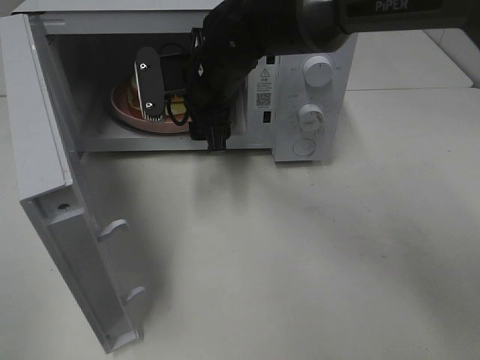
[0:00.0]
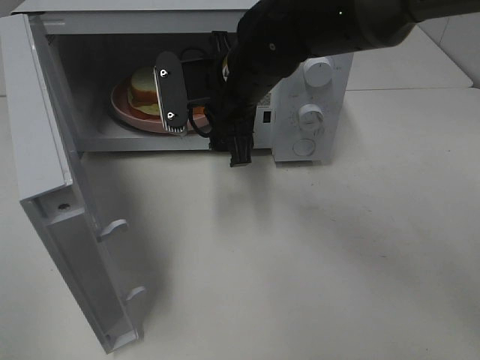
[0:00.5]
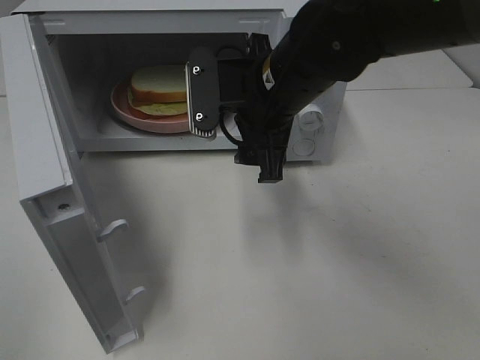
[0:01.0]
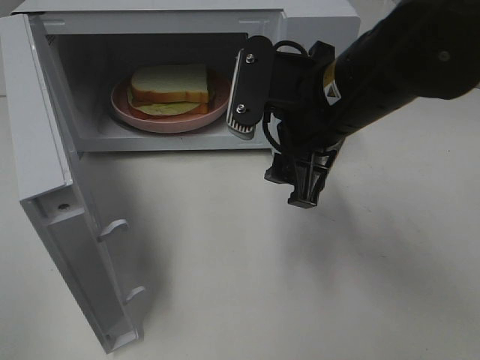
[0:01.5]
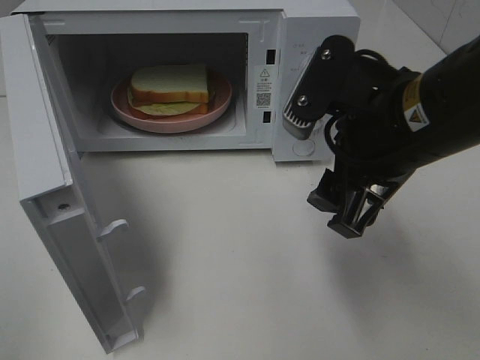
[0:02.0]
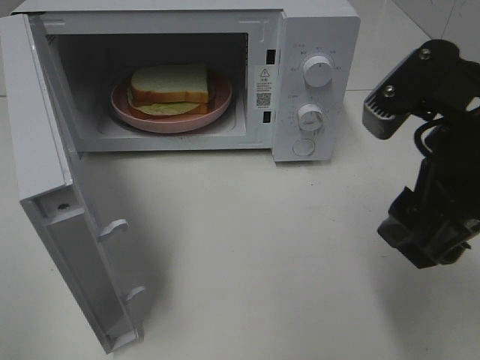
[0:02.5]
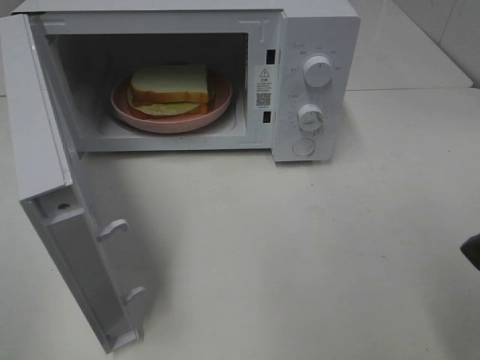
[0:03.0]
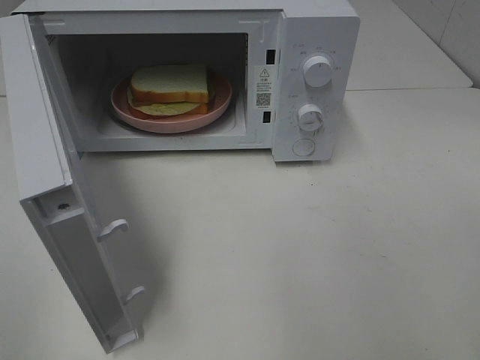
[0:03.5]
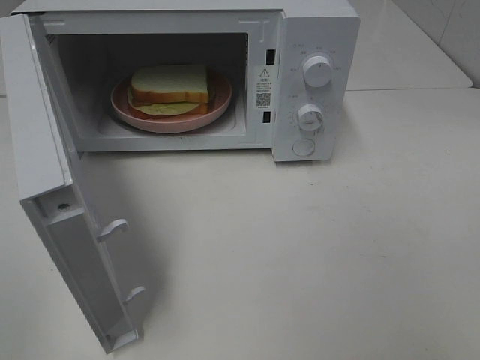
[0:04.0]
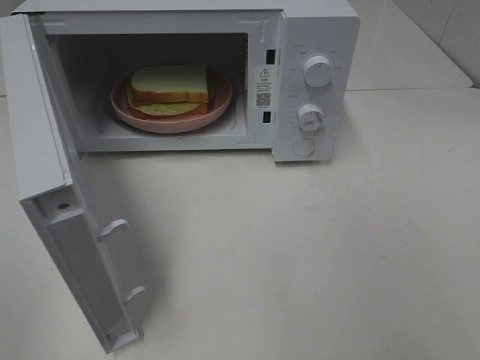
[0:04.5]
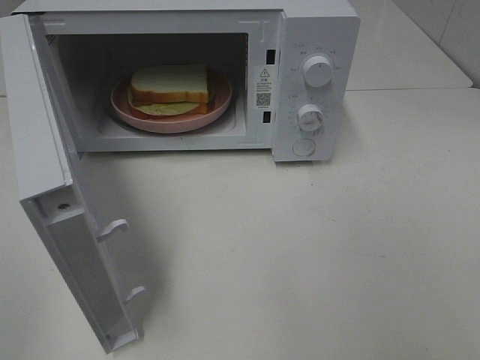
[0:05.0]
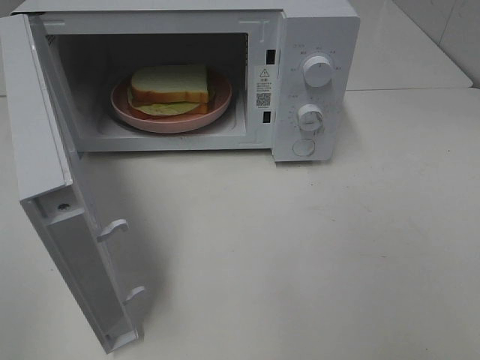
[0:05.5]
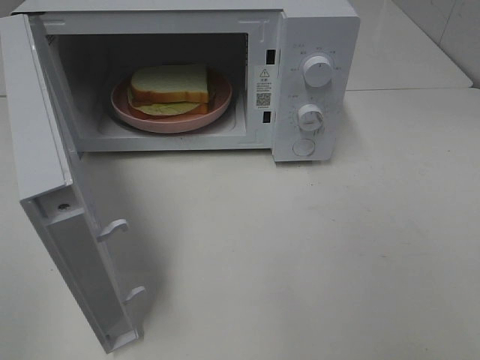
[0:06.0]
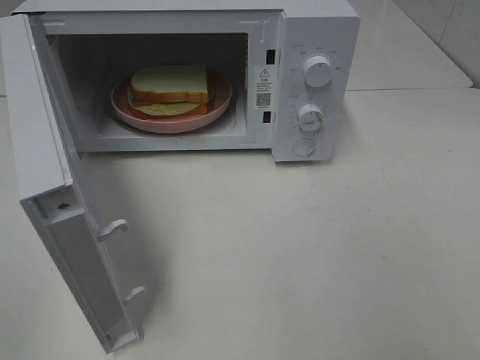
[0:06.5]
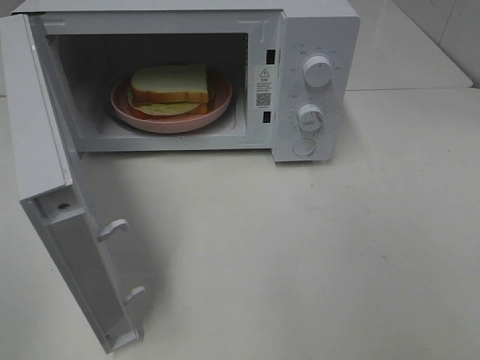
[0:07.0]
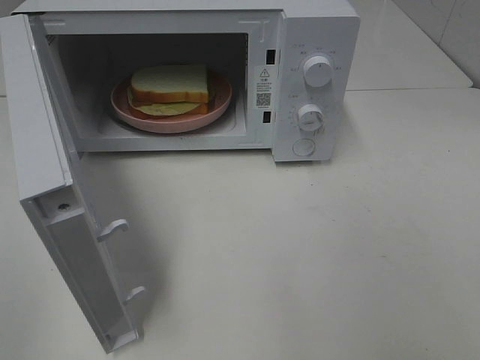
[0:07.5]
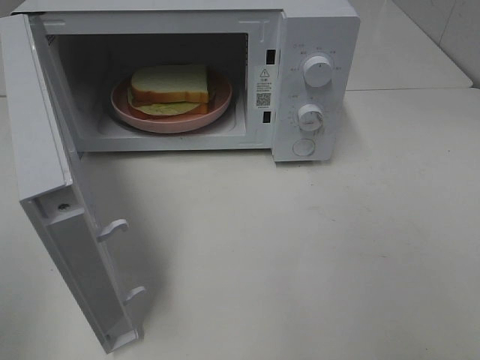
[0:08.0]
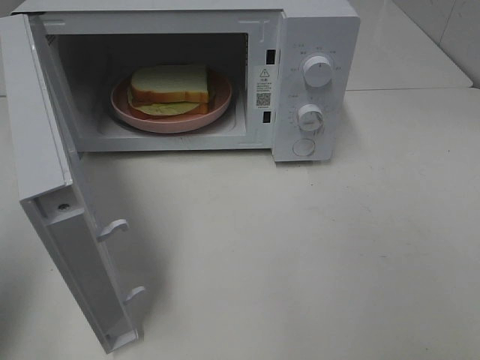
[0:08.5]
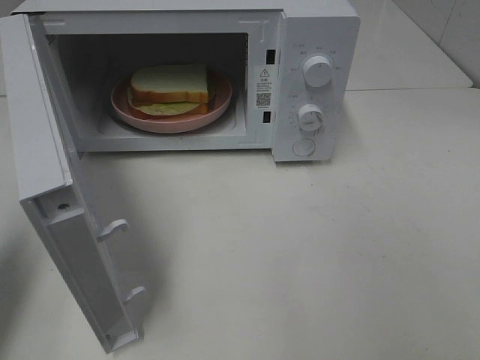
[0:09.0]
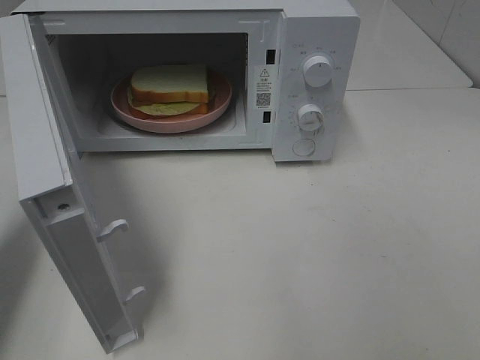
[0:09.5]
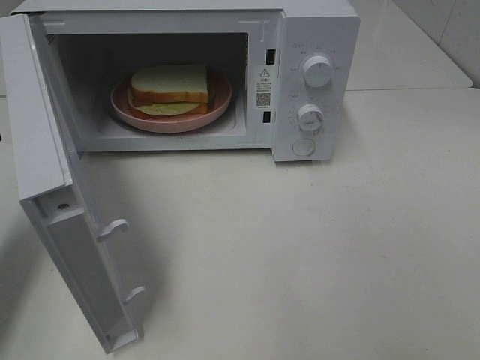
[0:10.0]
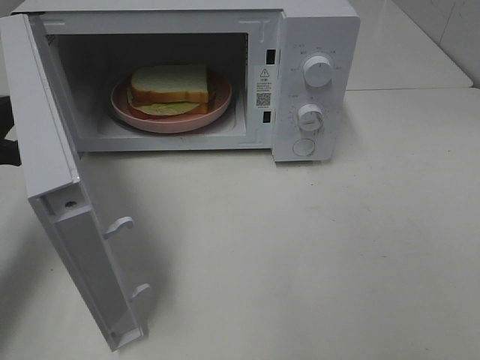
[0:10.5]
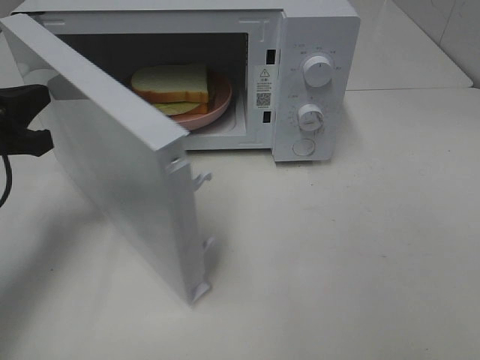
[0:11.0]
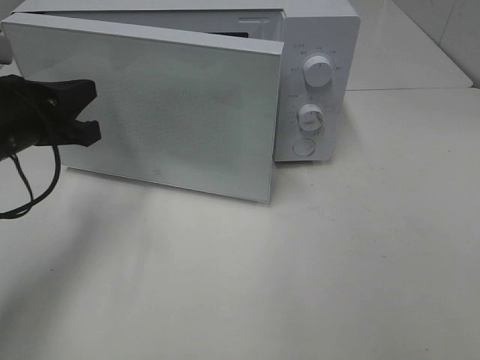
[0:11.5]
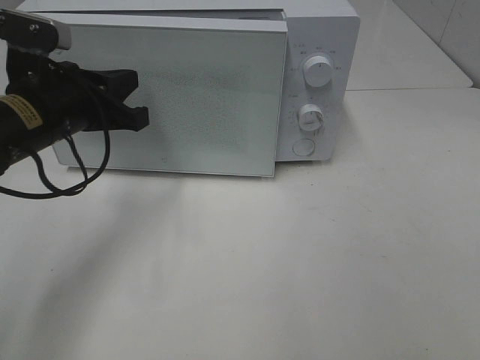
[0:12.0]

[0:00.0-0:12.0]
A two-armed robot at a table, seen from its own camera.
Task of the whole recording: Heat Sandwich.
0:00.0 to 0:02.0: The right gripper travels backward and to the right by roughly 25 cm.
0:02.0 to 0:04.0: The right gripper is displaced backward and to the right by some 20 cm.
0:08.0 to 0:10.0: The left gripper travels forward and downward by approximately 20 cm, and closes up.
0:10.0 to 0:12.0: The left gripper goes some 15 cm to the right and forward.

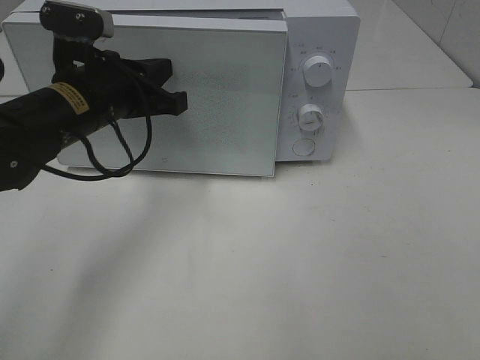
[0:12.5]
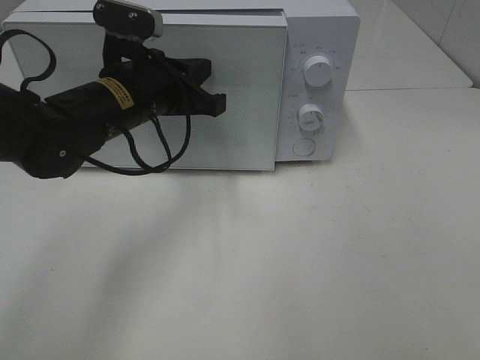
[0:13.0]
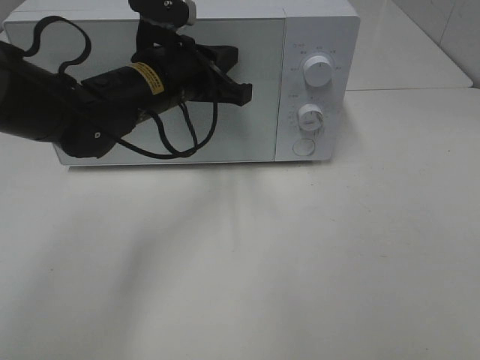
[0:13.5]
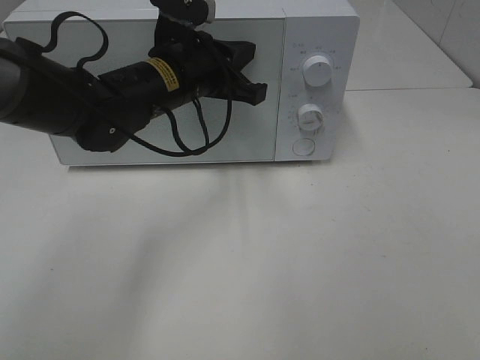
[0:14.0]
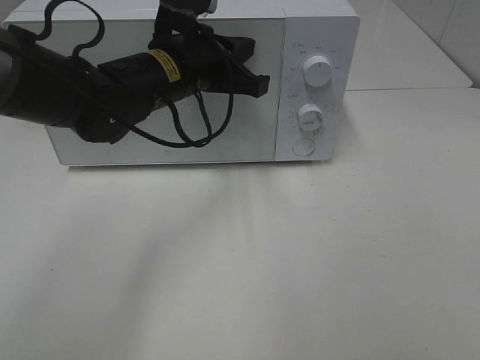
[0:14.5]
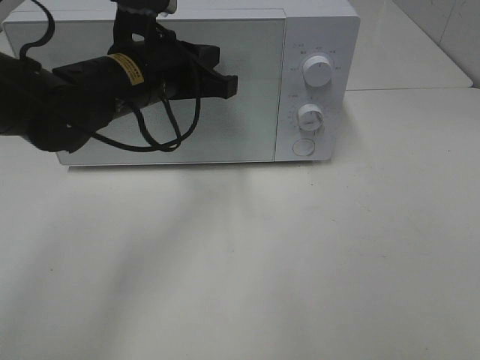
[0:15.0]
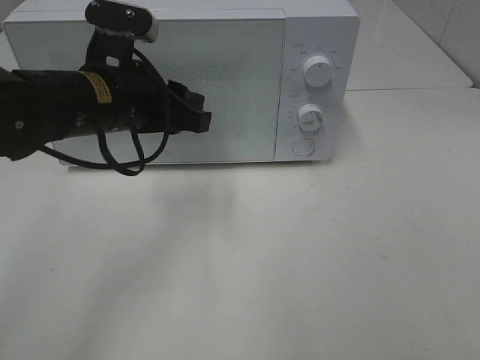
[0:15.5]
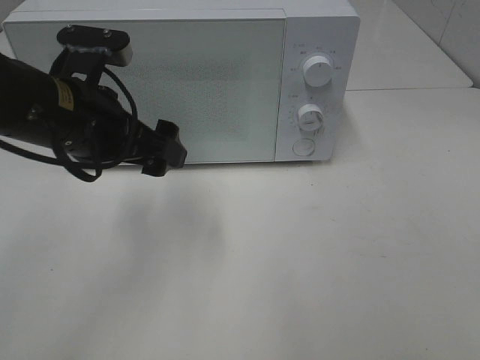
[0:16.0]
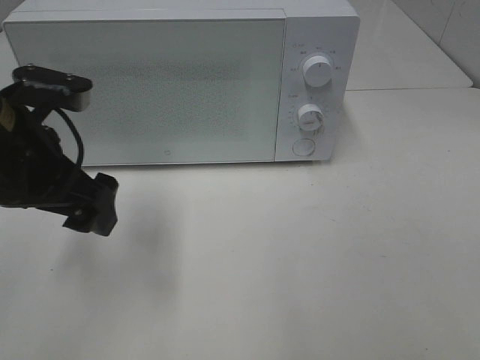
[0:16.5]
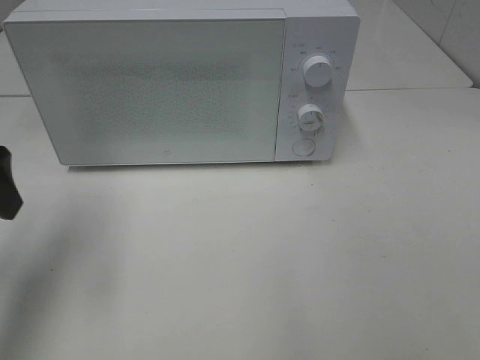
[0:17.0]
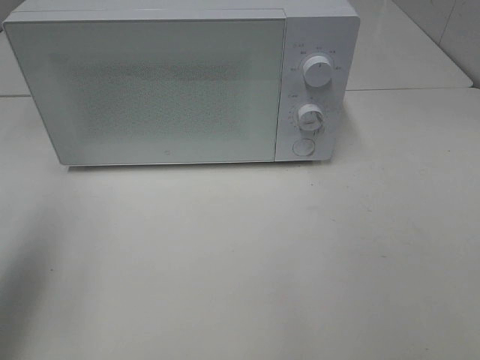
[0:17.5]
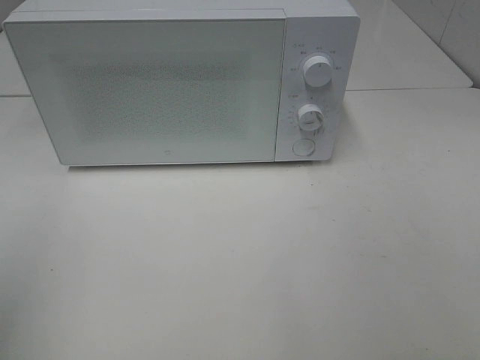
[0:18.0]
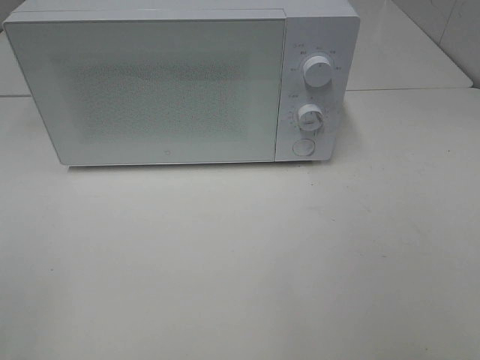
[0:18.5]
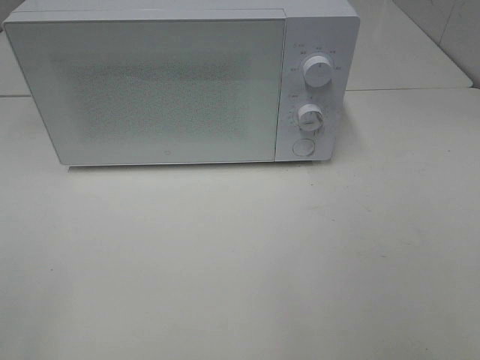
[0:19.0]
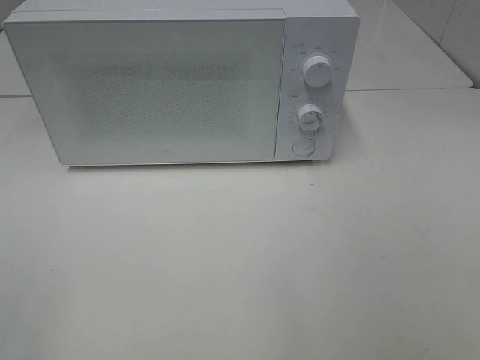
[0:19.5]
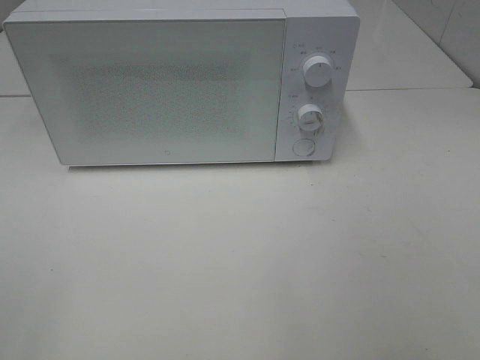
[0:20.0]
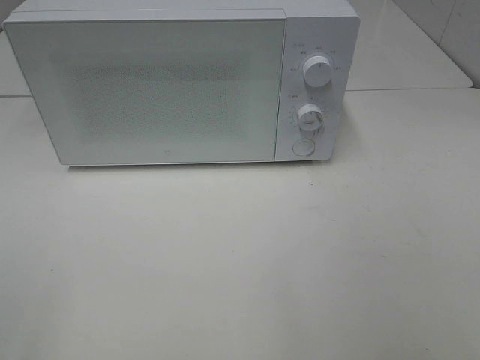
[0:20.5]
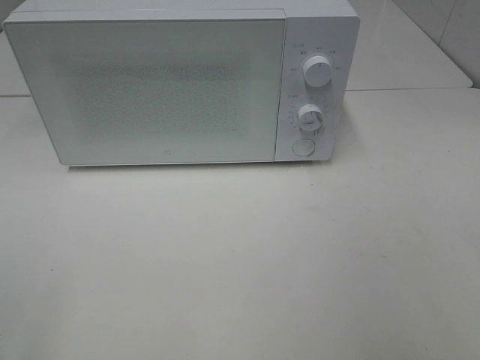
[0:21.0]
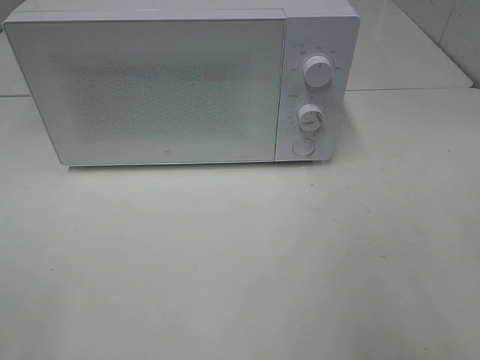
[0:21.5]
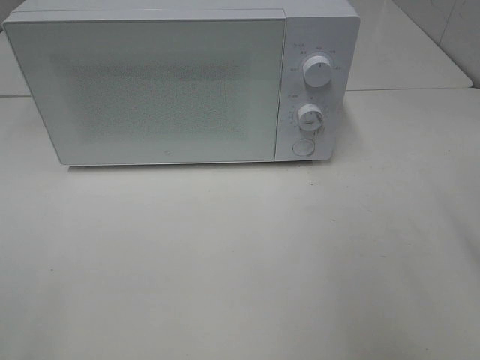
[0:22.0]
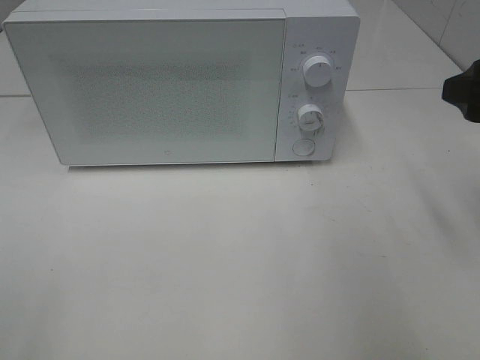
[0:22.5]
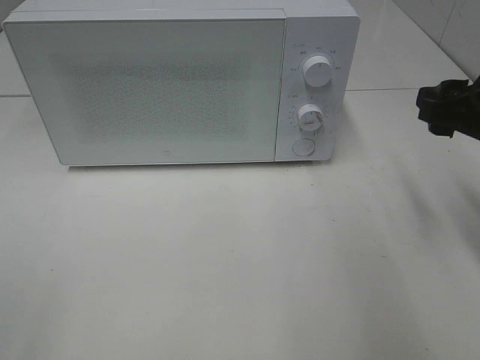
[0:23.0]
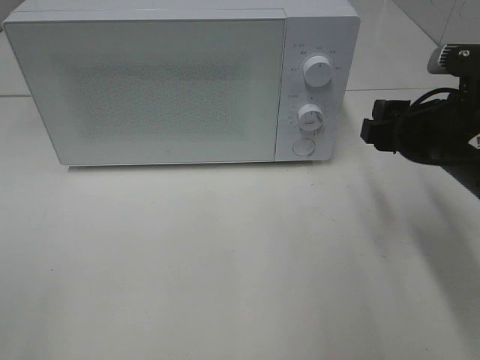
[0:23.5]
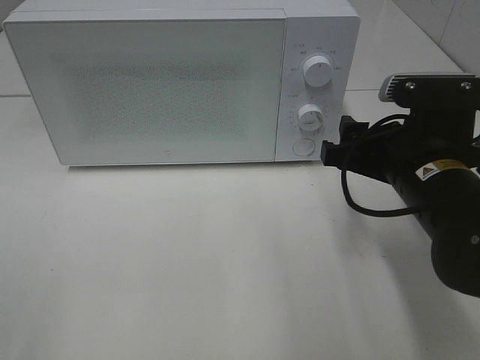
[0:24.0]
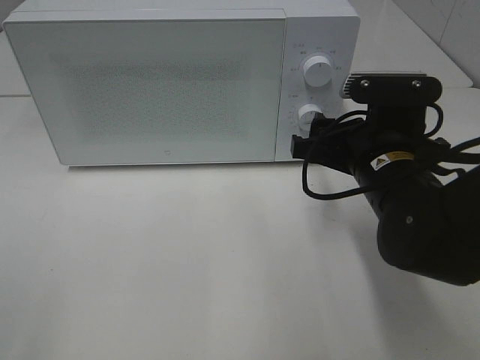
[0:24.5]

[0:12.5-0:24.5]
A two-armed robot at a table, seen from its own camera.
Task of the whole recording: Heat Sandwich.
Step, 0:12.5 to 0:16.0: Left hand: close the microwave door.
0:12.5 to 0:14.5: The left gripper heads to the right, covering approximately 10 cm.
0:14.5 to 0:16.5: The left gripper goes roughly 20 cm backward and to the left, and opens.
0:16.5 to 0:18.5: The left gripper moves backward and to the left, roughly 25 cm.
0:18.5 to 0:20.5: The two grippers keep their place.
0:20.5 to 0:22.5: The right gripper shifts about 25 cm forward.
0:22.5 to 0:24.5: The right gripper heads to the left and downward, covering approximately 15 cm.

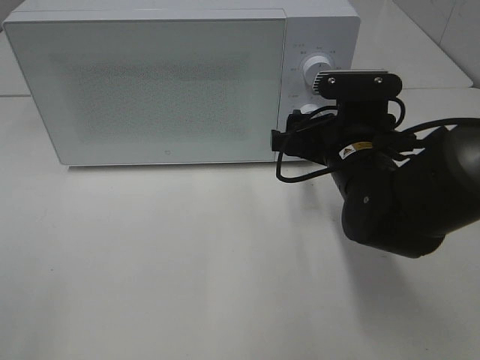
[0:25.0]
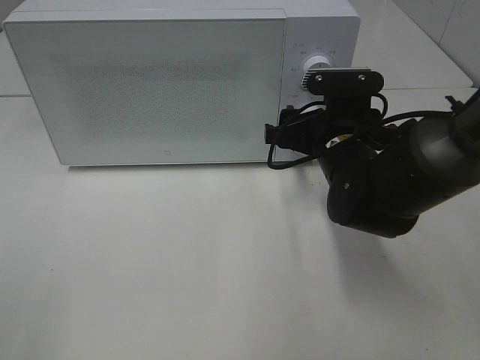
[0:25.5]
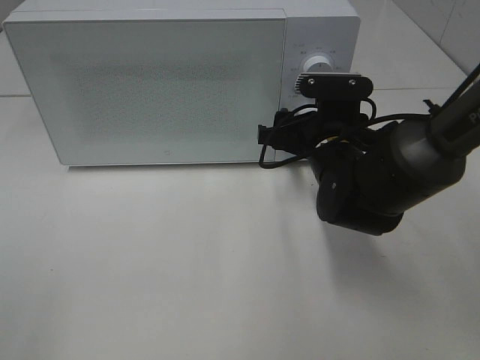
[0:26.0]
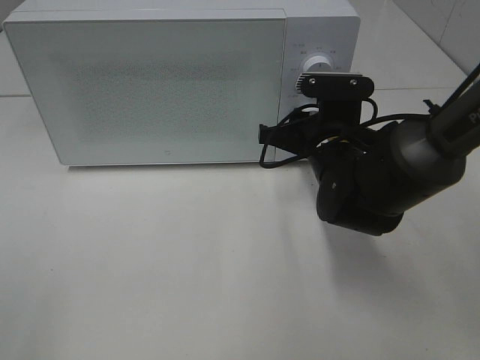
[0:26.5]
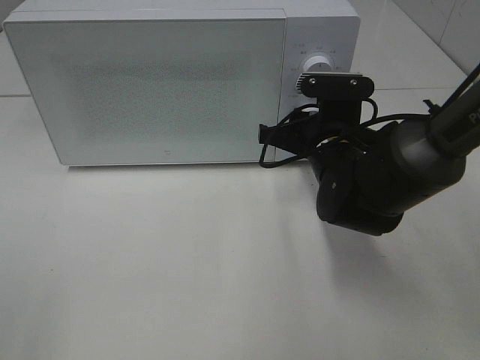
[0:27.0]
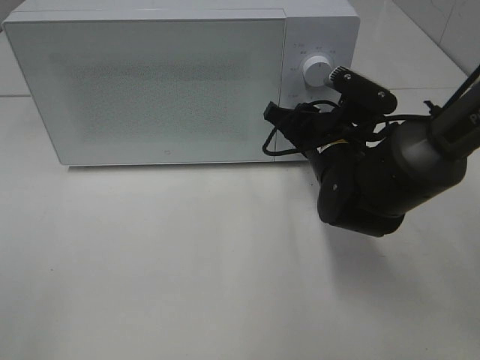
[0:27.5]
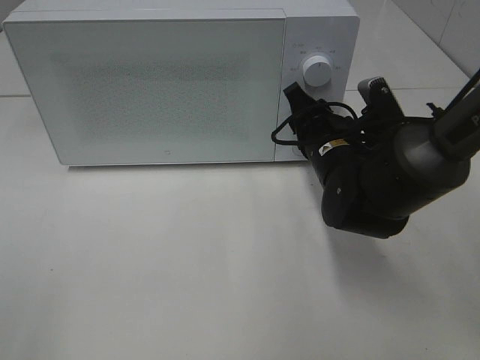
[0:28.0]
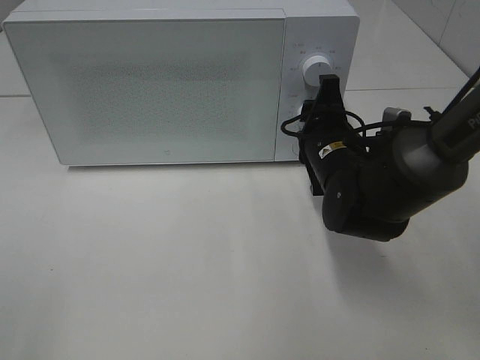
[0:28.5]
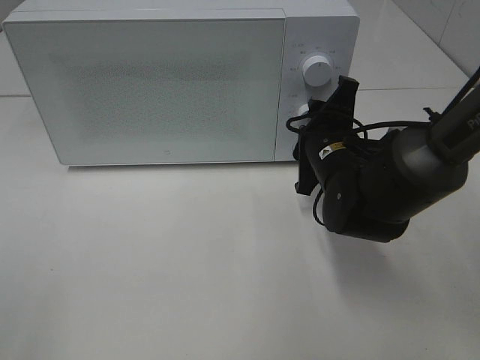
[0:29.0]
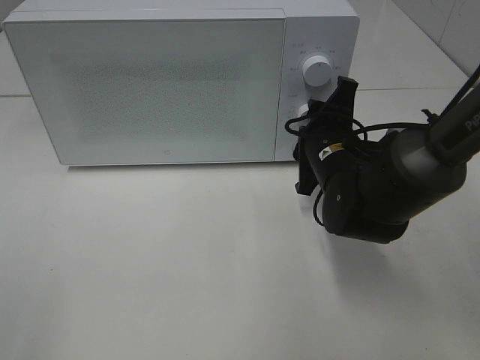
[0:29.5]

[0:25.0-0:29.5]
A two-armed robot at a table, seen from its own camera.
Task of the whole recording: Heat Sandwich.
0:25.0 to 0:27.0: The right gripper closes up.
